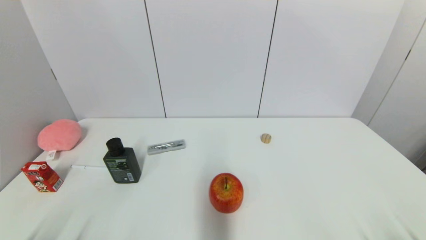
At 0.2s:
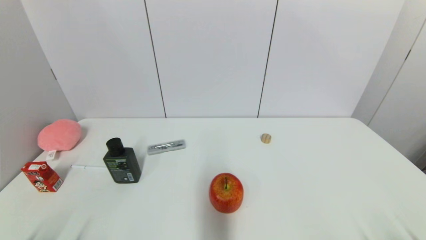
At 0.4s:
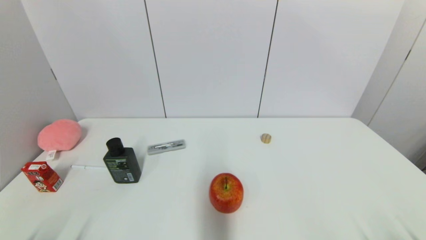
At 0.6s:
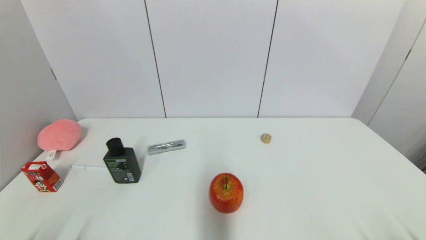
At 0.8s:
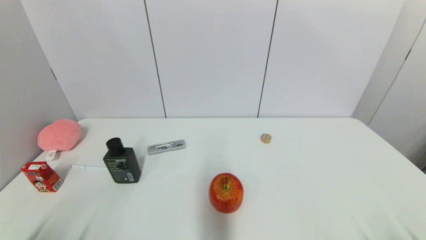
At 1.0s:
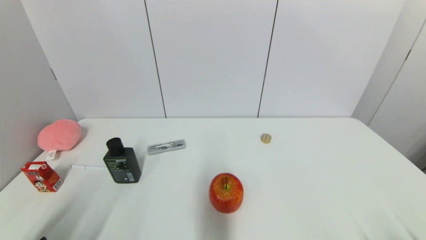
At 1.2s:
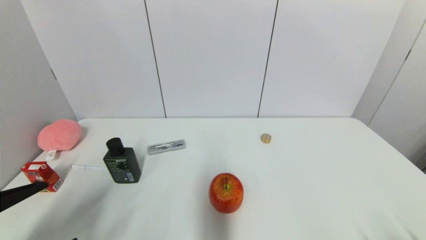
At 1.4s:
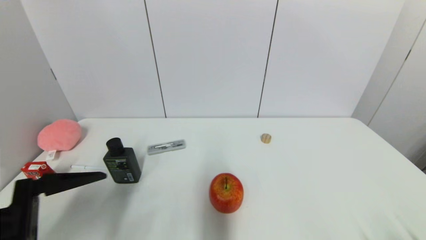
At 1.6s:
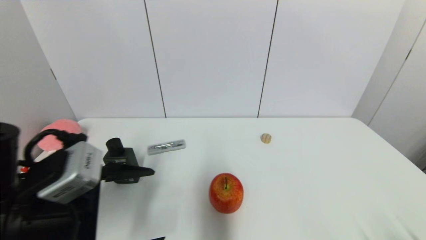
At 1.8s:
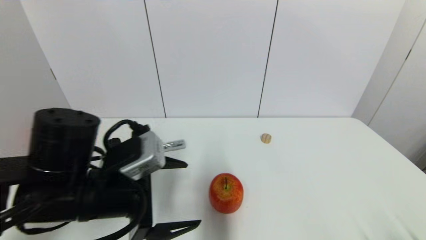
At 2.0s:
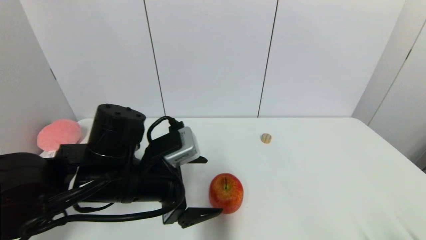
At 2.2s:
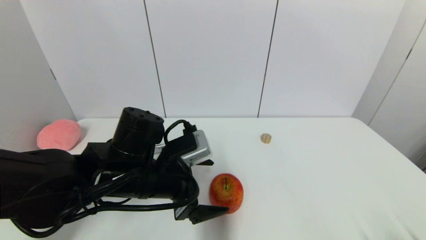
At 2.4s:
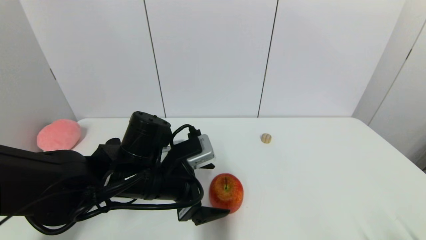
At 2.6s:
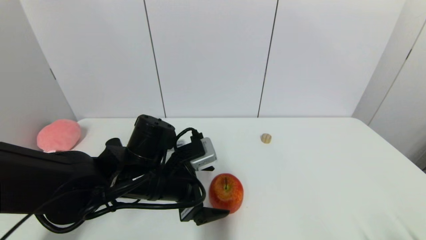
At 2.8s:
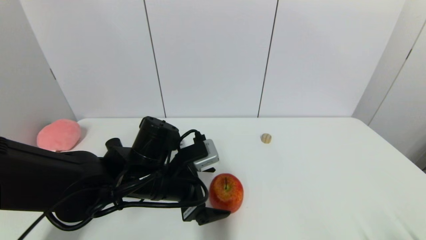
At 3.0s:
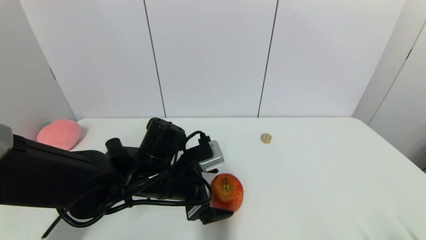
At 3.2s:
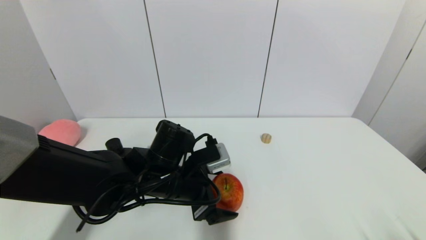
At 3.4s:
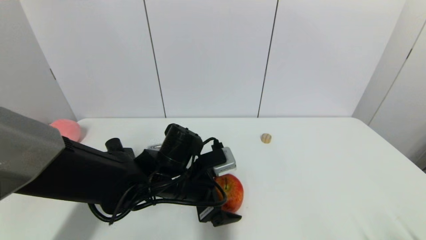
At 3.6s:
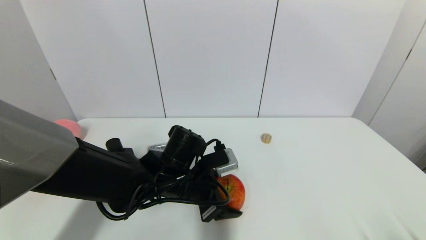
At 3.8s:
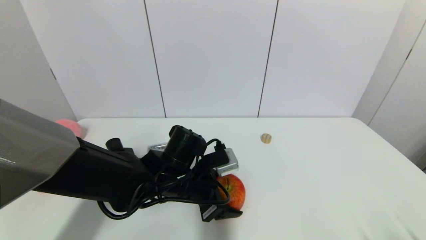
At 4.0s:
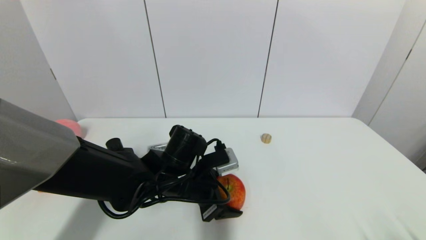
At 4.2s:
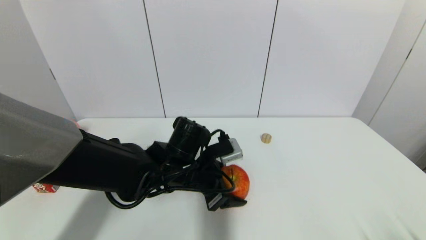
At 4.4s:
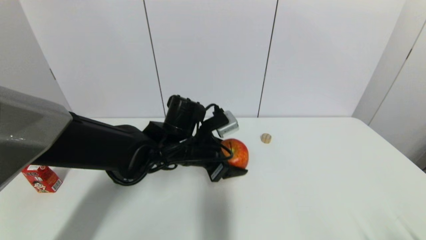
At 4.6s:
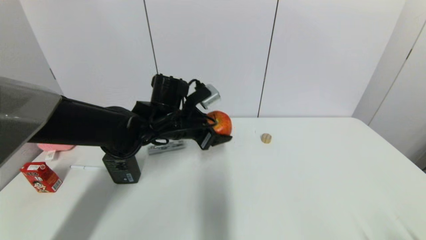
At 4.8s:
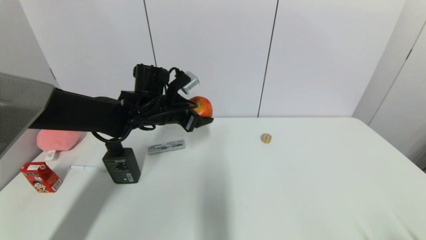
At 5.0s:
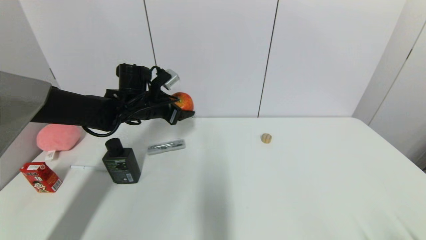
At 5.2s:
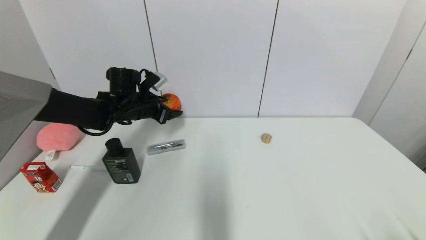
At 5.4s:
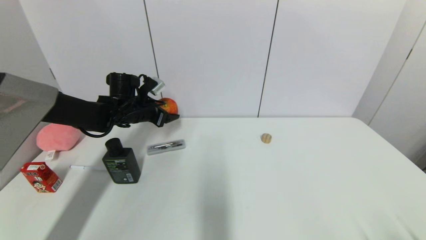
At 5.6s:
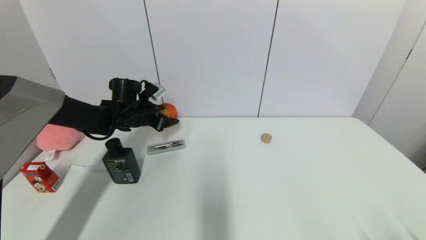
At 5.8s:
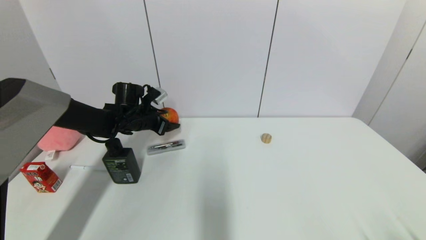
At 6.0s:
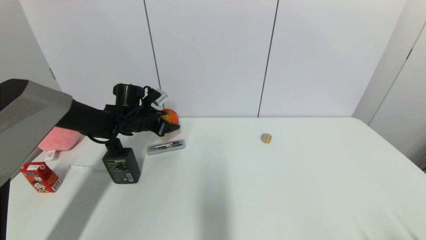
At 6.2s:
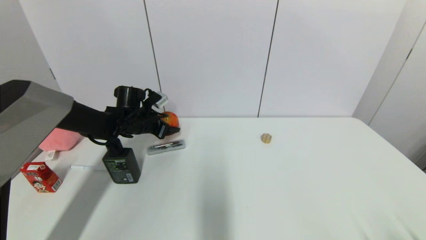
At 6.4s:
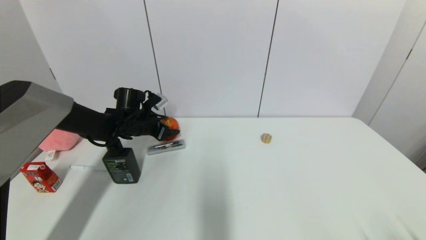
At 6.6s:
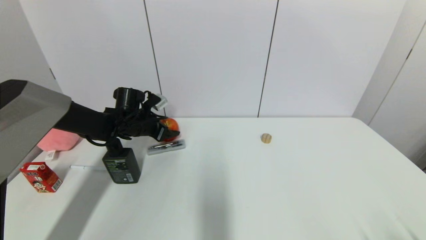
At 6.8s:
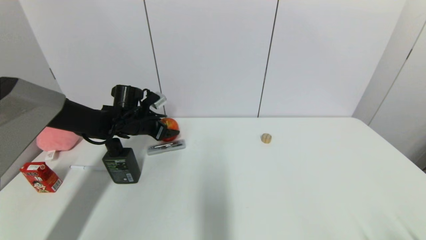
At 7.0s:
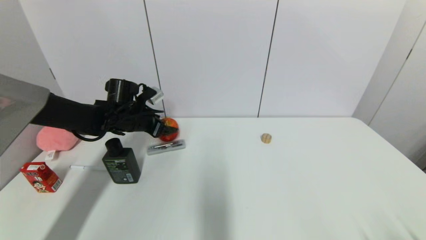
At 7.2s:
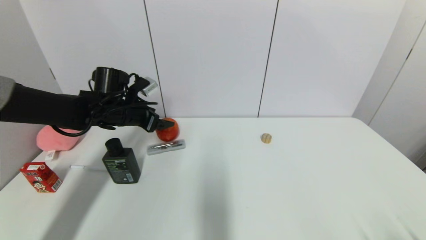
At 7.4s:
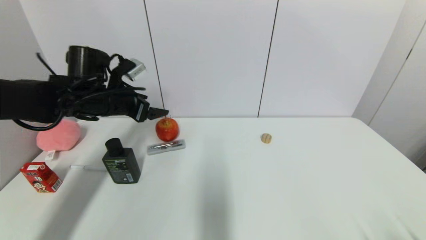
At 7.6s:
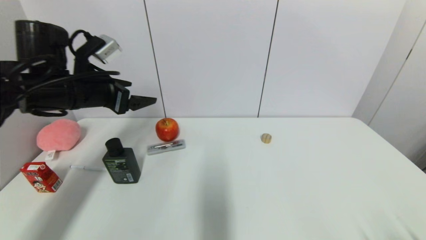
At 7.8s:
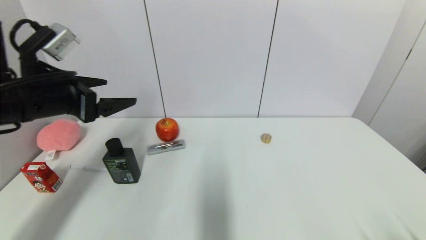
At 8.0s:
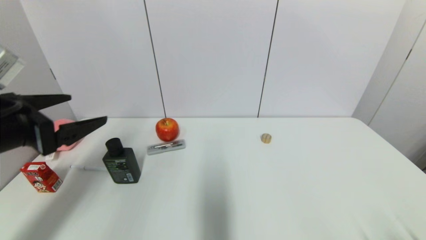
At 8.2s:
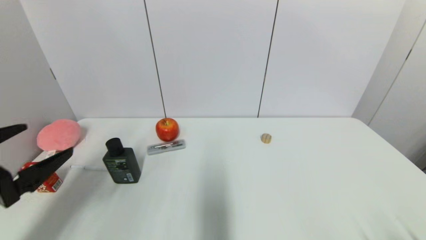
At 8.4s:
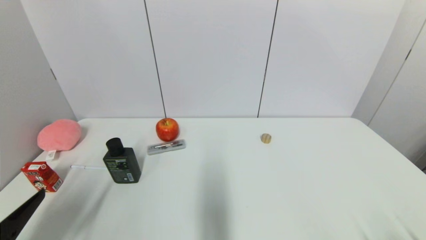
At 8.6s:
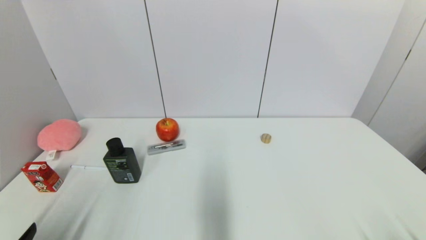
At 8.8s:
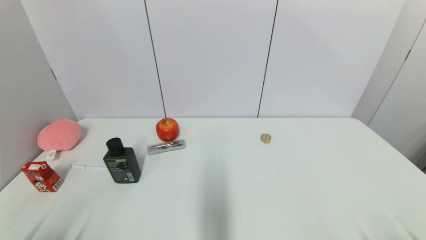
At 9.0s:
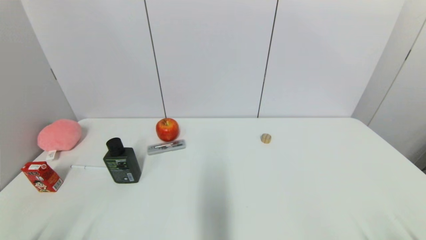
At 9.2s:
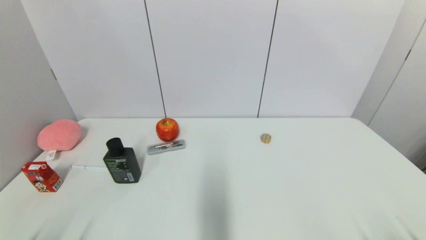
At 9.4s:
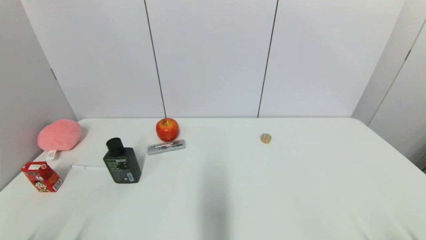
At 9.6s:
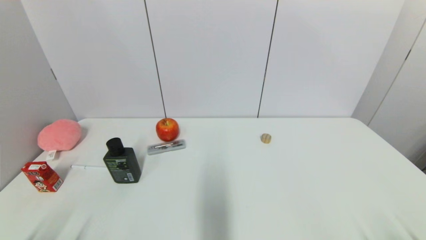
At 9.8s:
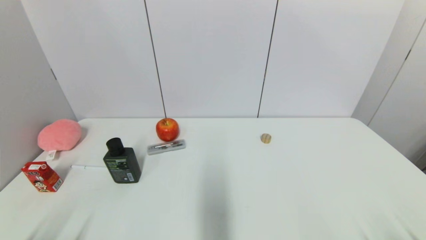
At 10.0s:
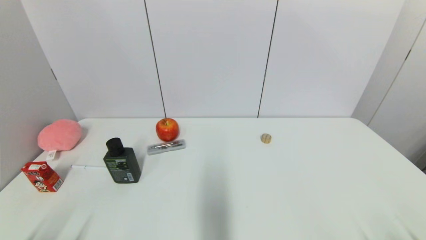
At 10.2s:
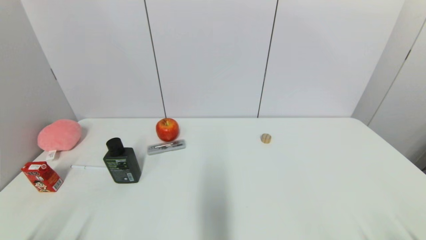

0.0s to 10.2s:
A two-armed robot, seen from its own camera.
Task of the whole recording: put the apple in the designated position.
Step, 1.0s to 3.6s: Grasp the apple with left gripper.
Step, 3.8s to 7.2s: Place the apple on the table with left gripper.
0.0s to 1.4s: The left gripper goes some 20 cm upward, forward and to the right.
1.4s to 3.0s: The left gripper shifts approximately 25 cm to the right, forward and downward.
3.0s to 4.4s: The left gripper is displaced forward by about 5 cm, and closes.
4.4s to 5.8s: The left gripper heads to the left and forward, covering roughly 20 cm.
5.8s to 7.2s: The left gripper ends up roughly 5 cm from where it was, and opens up.
7.2s to 8.8s: The left gripper heads backward, covering roughly 40 cm.
